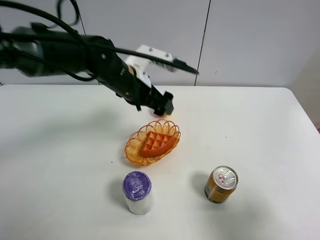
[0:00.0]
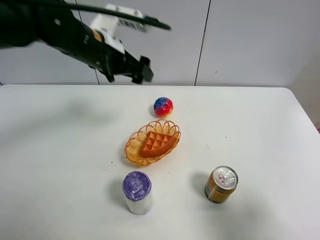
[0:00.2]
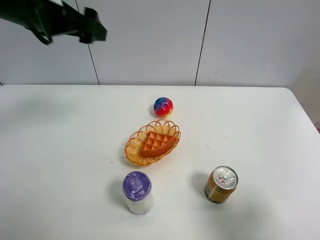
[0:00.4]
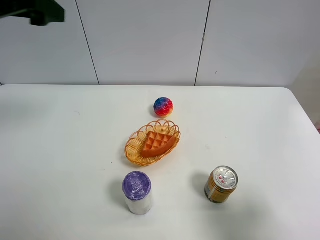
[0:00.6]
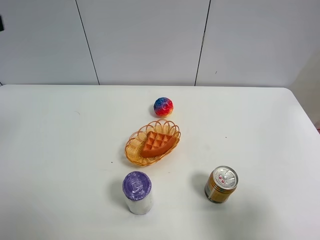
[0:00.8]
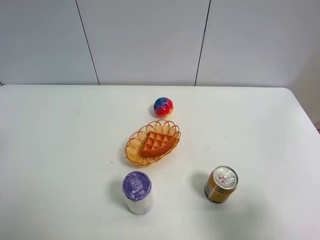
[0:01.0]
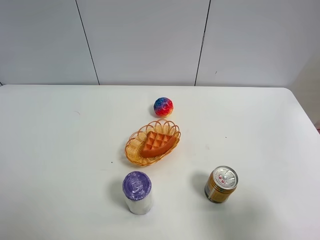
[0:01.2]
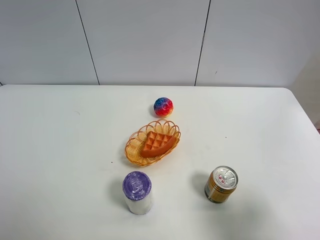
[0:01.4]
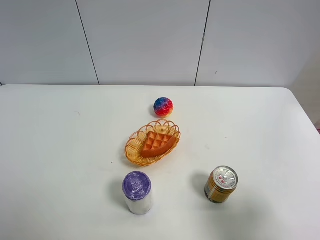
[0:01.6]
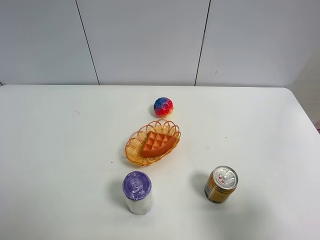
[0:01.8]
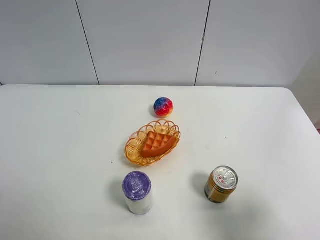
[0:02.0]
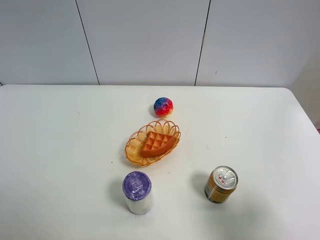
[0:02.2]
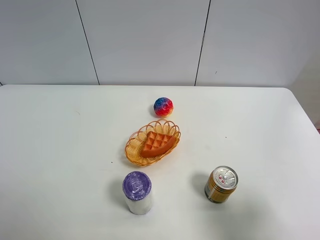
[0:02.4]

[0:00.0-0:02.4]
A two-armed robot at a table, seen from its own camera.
Task of the whole recording: Put the bakery in the basket.
0:00.0 to 0:01.2: The left gripper shifts approximately 40 cm backward and to the left.
